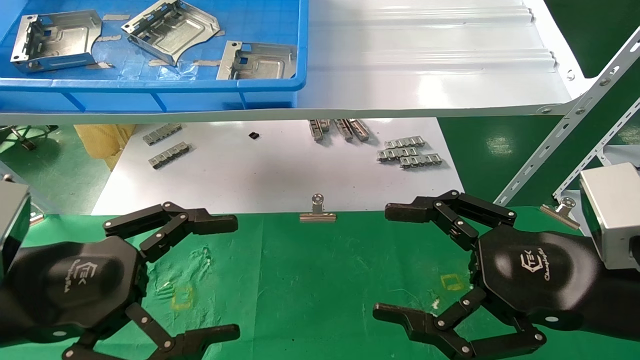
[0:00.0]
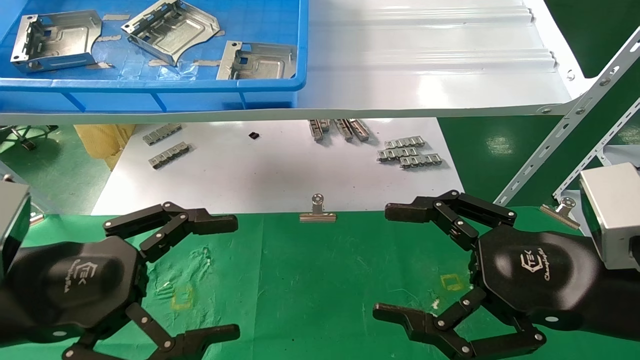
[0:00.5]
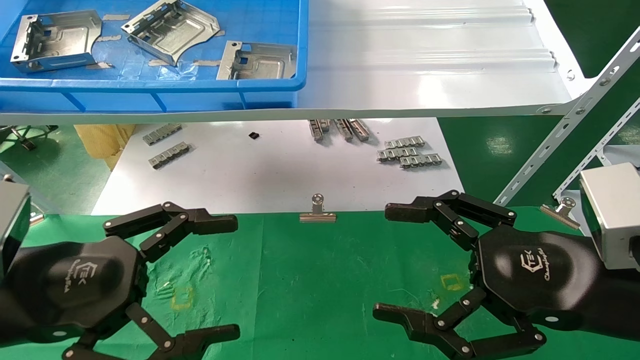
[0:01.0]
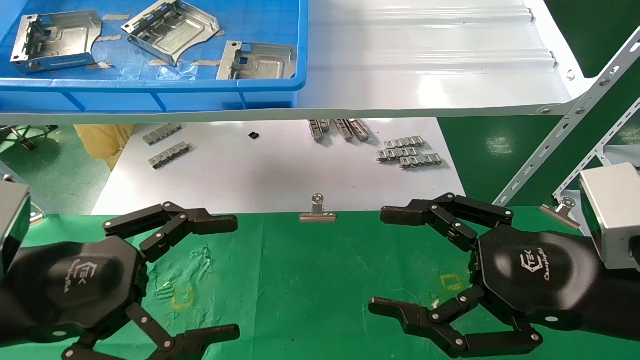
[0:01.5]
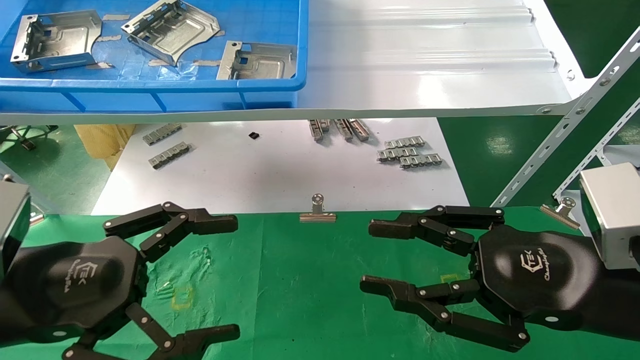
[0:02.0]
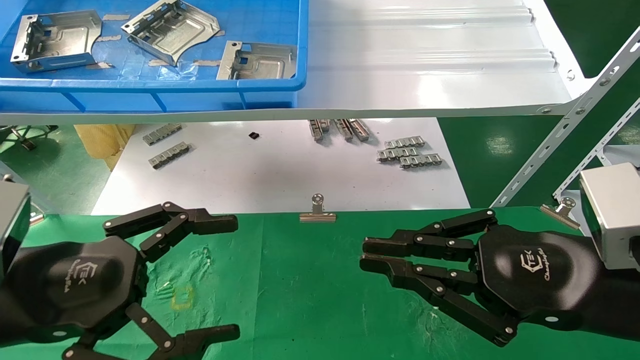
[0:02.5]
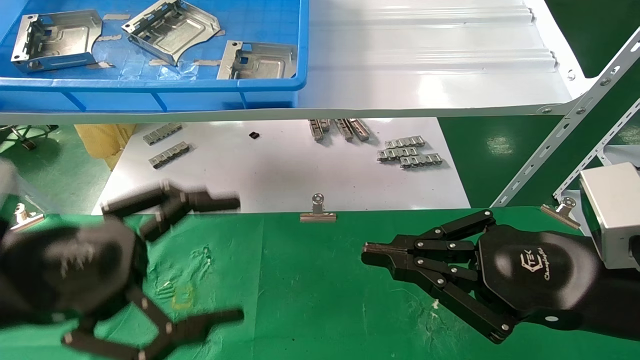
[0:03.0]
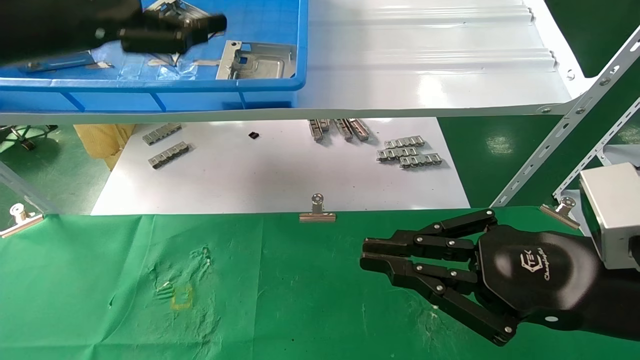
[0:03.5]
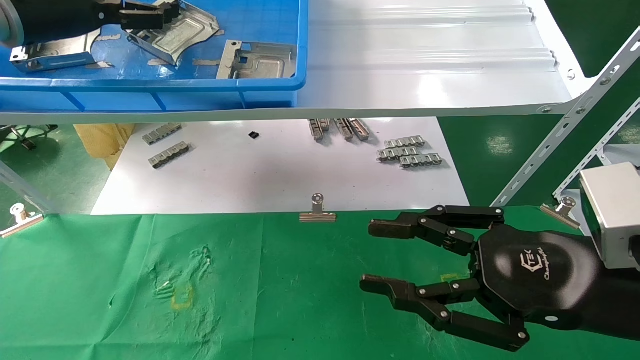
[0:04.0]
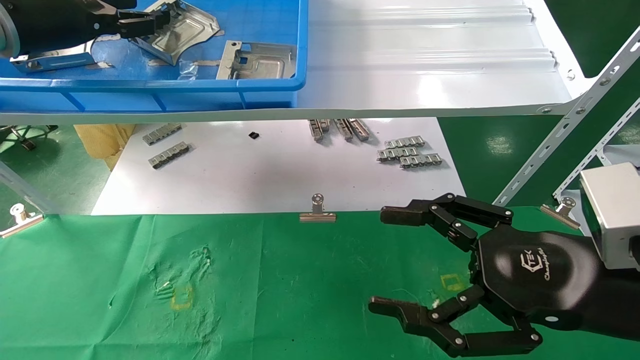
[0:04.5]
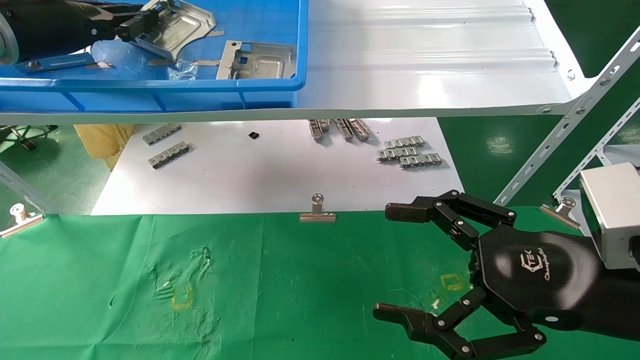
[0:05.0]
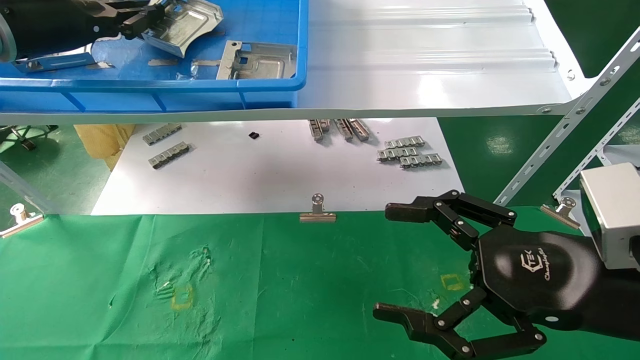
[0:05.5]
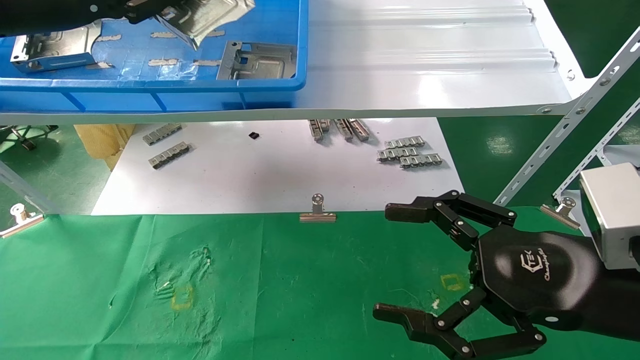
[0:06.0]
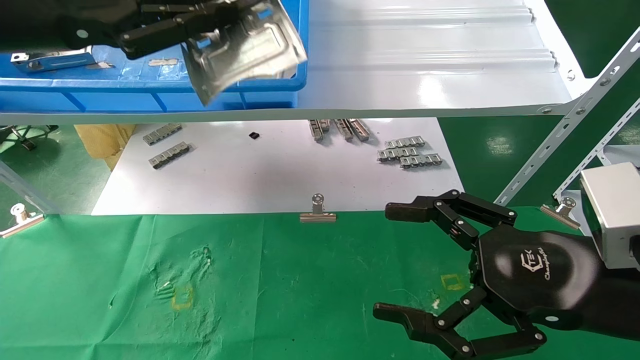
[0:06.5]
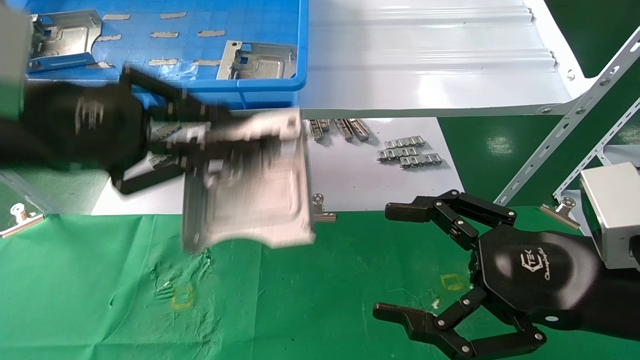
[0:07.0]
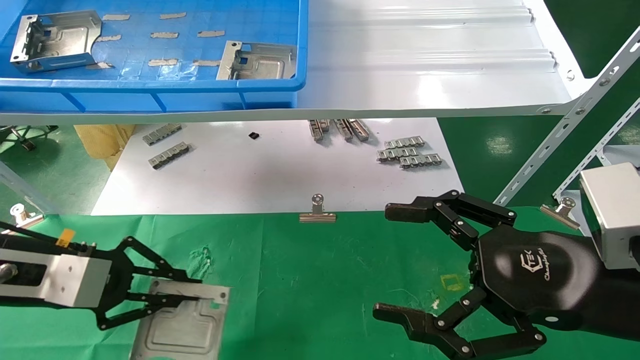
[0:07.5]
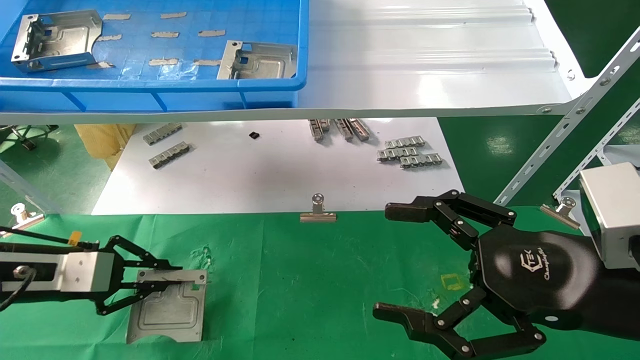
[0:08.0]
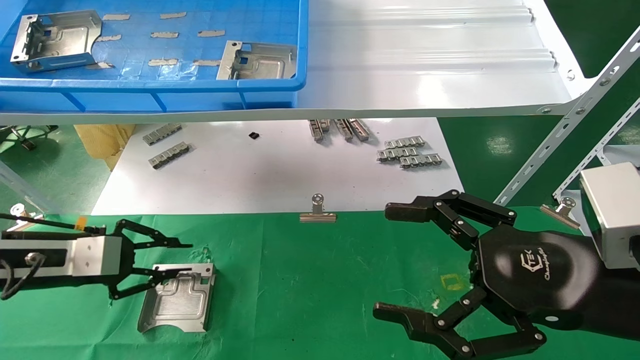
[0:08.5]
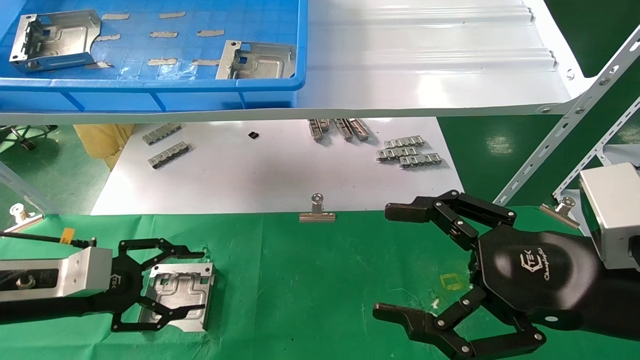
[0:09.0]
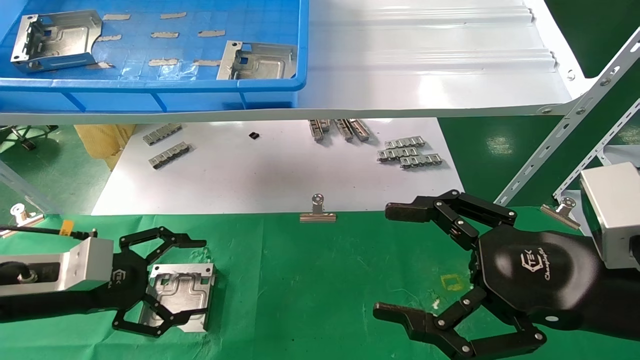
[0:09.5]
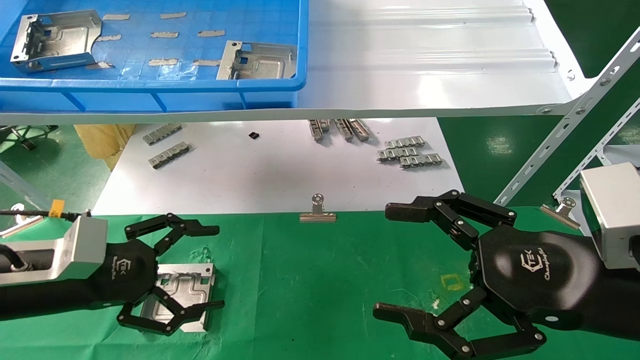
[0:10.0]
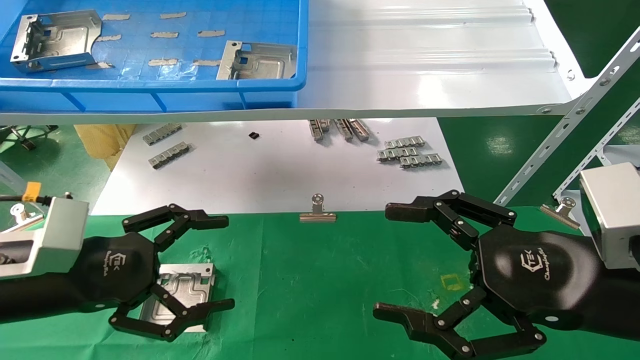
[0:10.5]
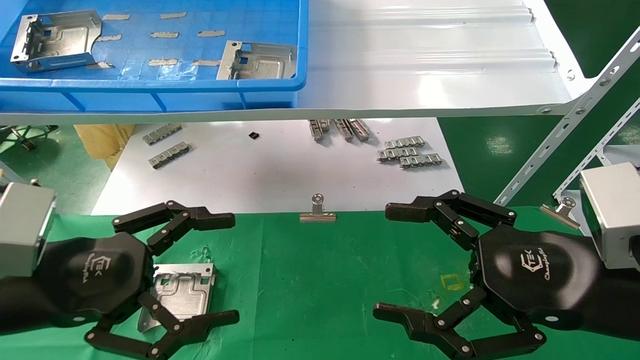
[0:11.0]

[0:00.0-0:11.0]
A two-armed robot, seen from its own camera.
Task of the whole recording: use the mechanical arm to pick up the parts and place them on the table.
Step, 0:03.5 to 0:05.0: Pick up the hard drive bracket from the feeding area.
Step, 0:05.5 to 0:08.5: Place the hard drive bracket into the box.
0:00.0 to 0:02.0: The right gripper closes its fingers.
0:02.0 to 0:03.5: The right gripper closes, while the left gripper is displaced upward and forward by roughly 25 cm.
0:03.5 to 0:05.5: The right gripper opens, while the left gripper goes about 10 cm forward, and closes up.
0:05.5 to 0:07.5: The left gripper goes approximately 25 cm downward and backward.
0:07.5 to 0:09.0: The left gripper shifts approximately 5 cm downward, and opens.
0:09.0 to 0:11.0: The left gripper is displaced backward, to the right and upward by some 15 cm, and opens.

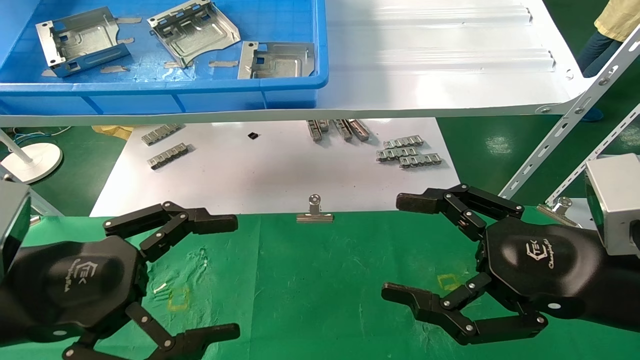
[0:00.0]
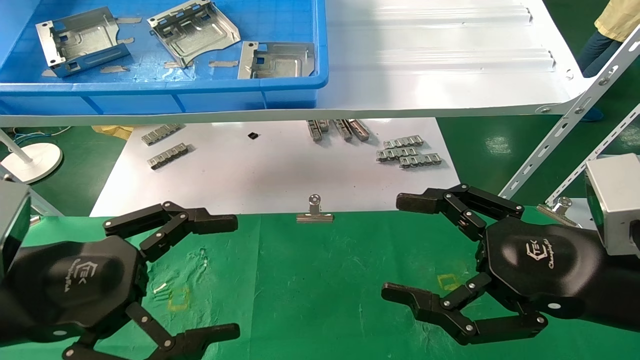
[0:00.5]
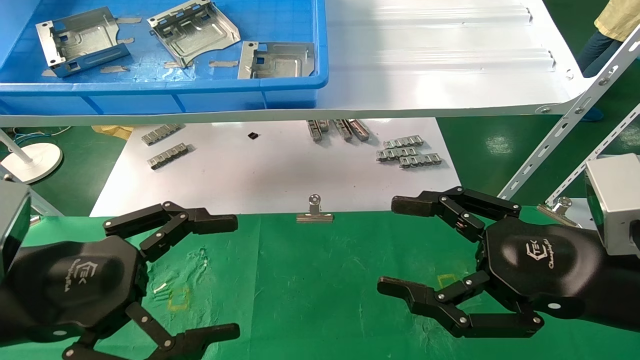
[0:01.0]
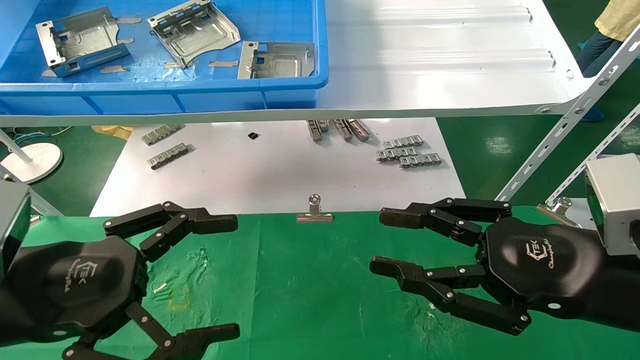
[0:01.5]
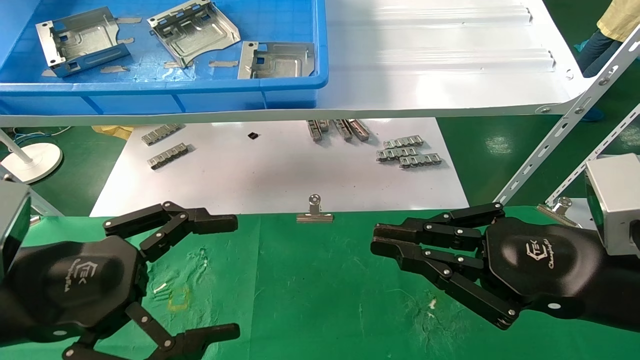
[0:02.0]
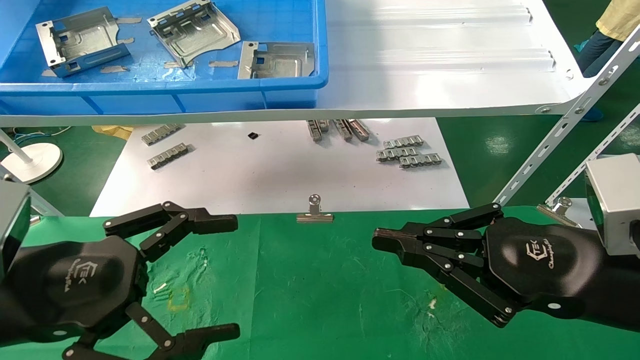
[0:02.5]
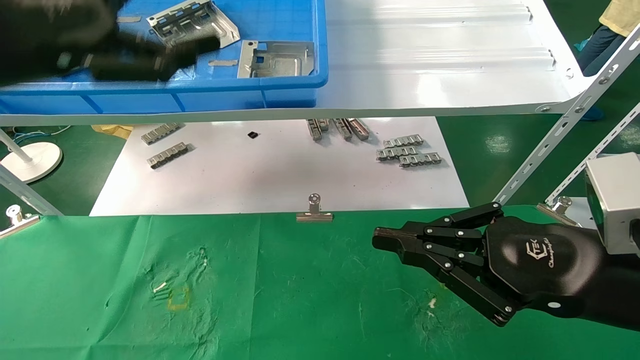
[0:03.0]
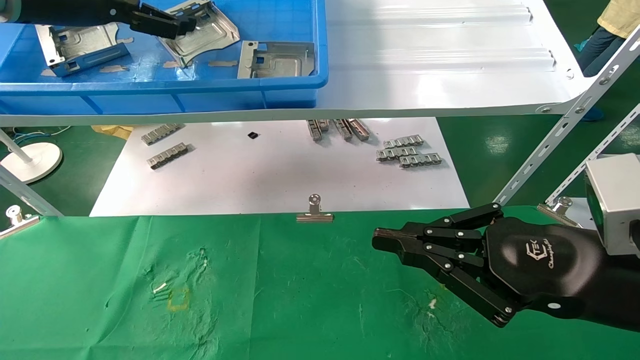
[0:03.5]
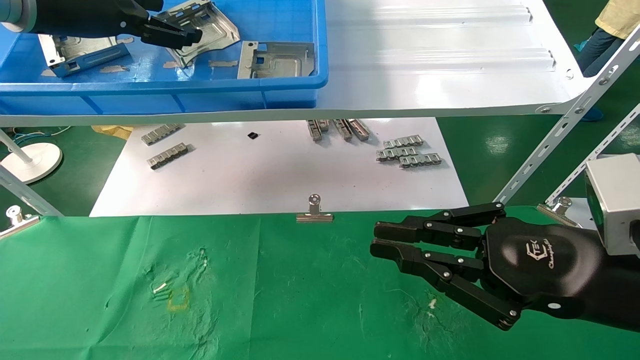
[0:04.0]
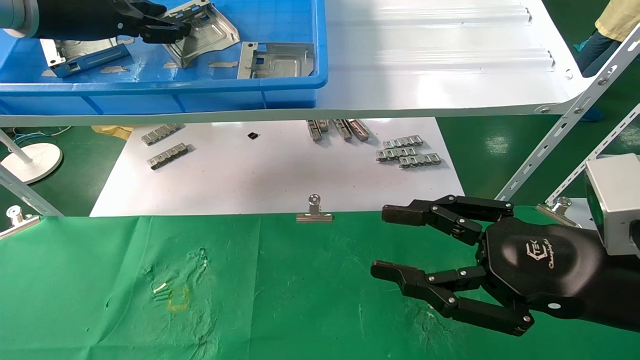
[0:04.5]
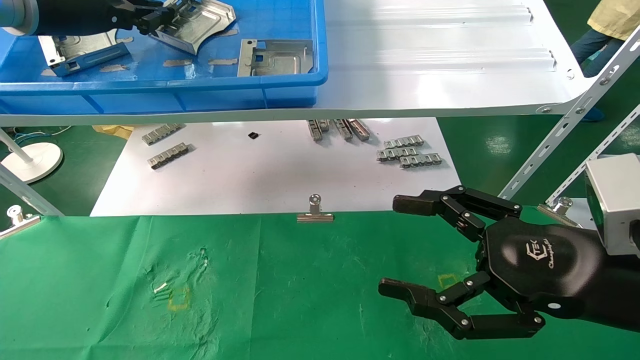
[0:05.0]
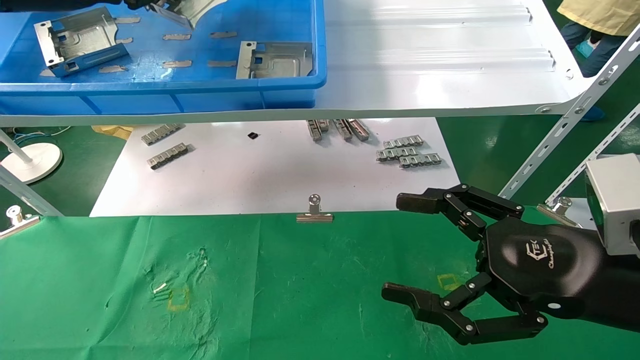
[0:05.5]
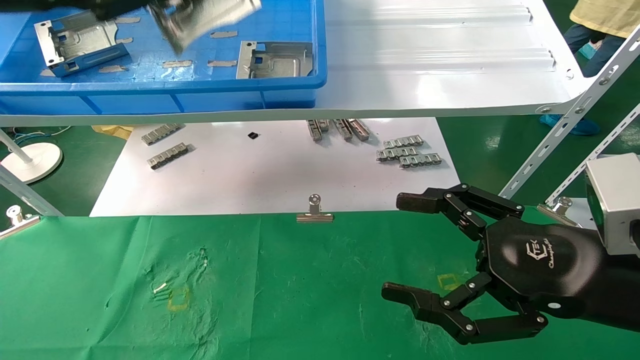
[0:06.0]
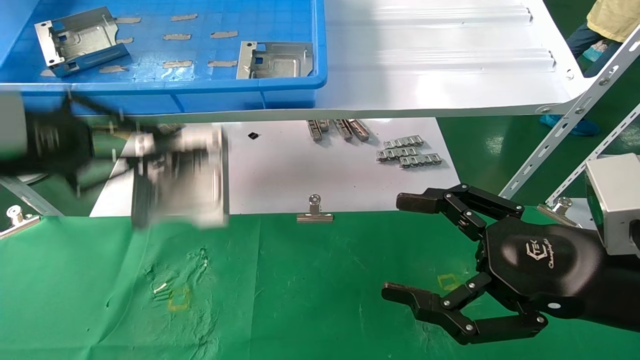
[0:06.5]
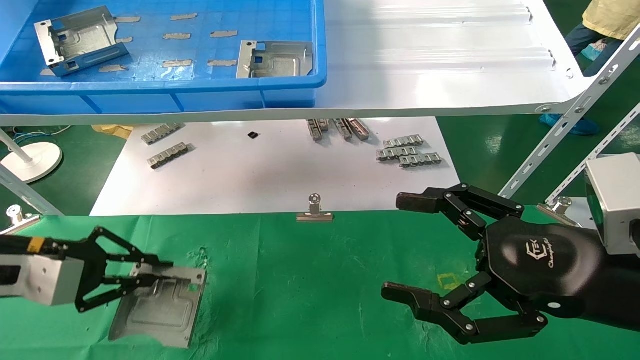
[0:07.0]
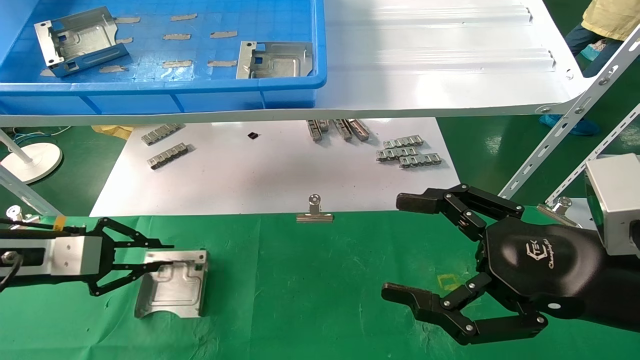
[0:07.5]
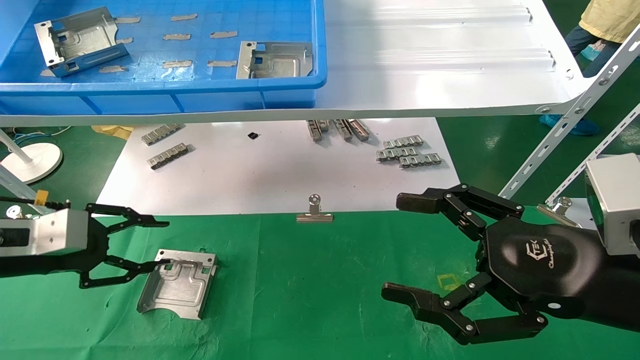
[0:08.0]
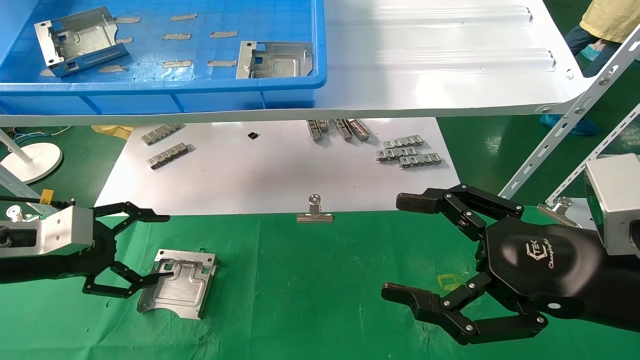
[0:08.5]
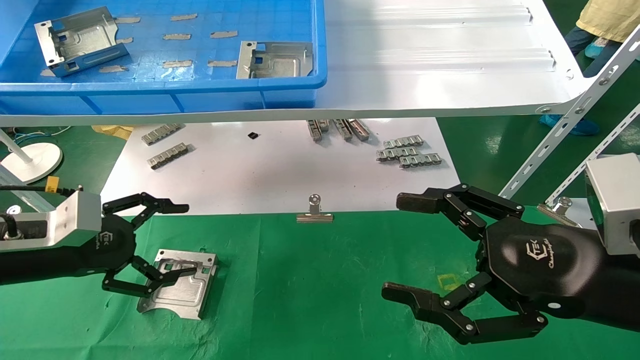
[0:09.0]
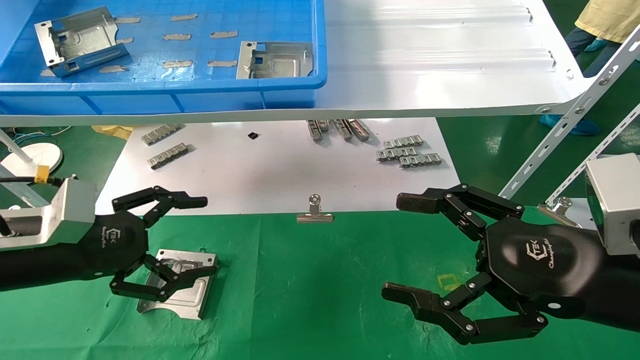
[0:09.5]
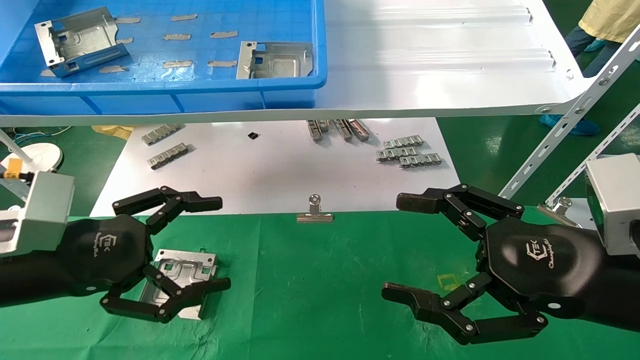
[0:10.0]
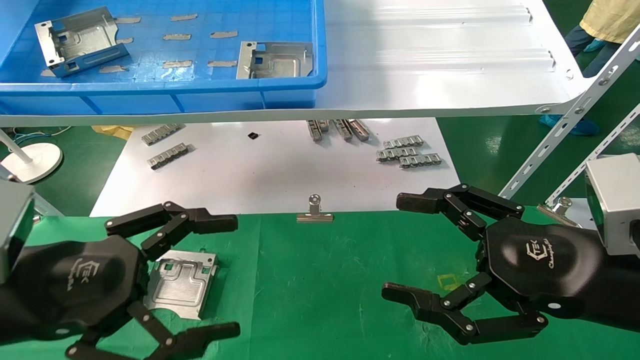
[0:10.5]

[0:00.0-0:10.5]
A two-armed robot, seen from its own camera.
Task of the whole recording: use the mechanical arm to pick up the parts and place them on the table.
Step, 0:03.0 to 0:05.0: Pick up the hard drive bracket from the feeding area.
Step, 0:05.5 to 0:07.5: Place the hard drive bracket into the box.
0:00.0 to 0:02.0: The right gripper closes its fingers.
0:02.0 to 0:04.0: The left gripper moves upward and forward, roughly 30 cm.
0:04.0 to 0:06.5: The right gripper opens up; the left gripper travels downward, backward and to the left by roughly 20 cm, and closes.
0:06.5 to 0:08.5: The left gripper heads downward, covering roughly 15 cm, and opens its fingers.
0:08.5 to 0:10.5: The left gripper travels backward and to the right by roughly 15 cm.
